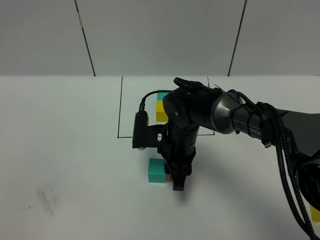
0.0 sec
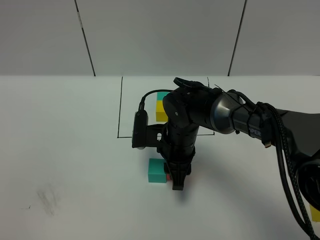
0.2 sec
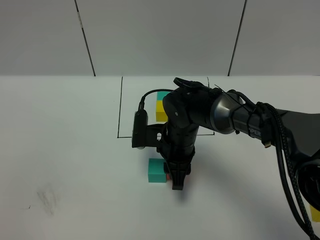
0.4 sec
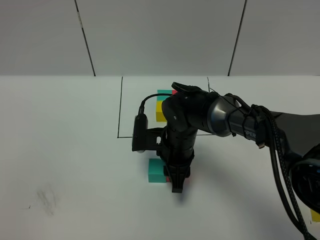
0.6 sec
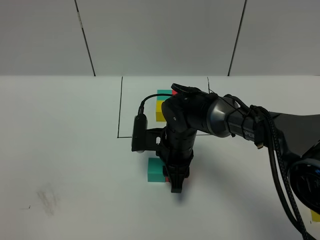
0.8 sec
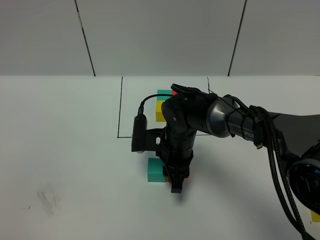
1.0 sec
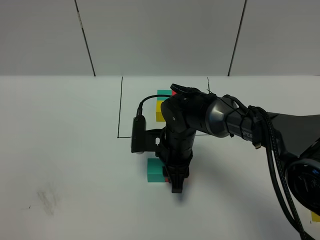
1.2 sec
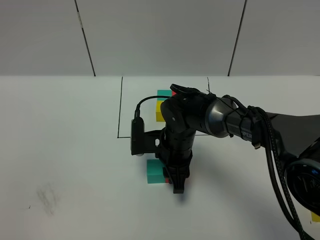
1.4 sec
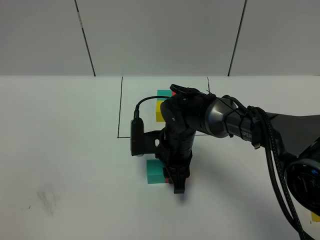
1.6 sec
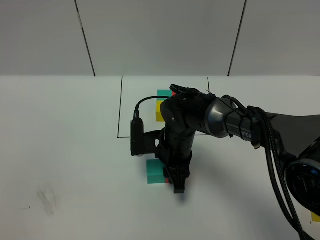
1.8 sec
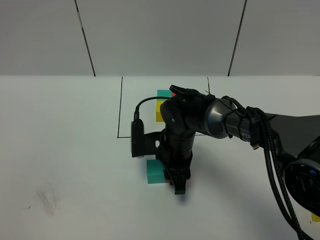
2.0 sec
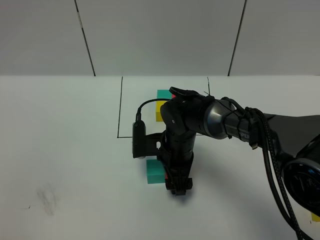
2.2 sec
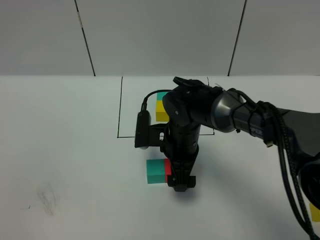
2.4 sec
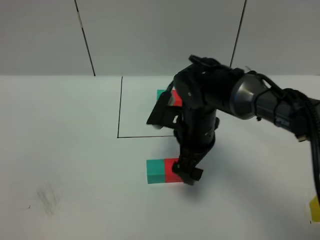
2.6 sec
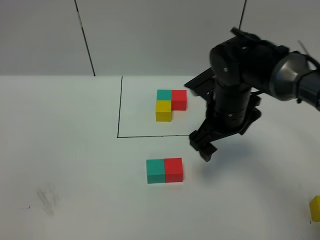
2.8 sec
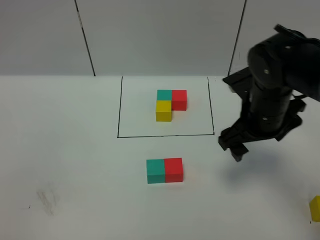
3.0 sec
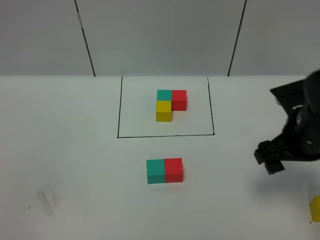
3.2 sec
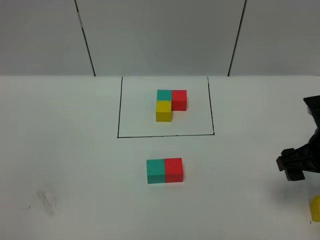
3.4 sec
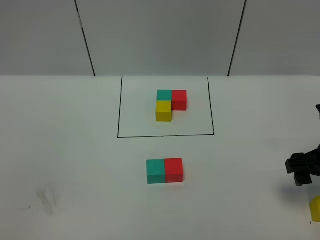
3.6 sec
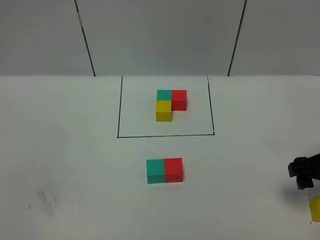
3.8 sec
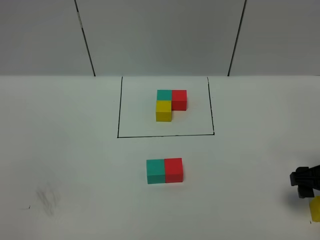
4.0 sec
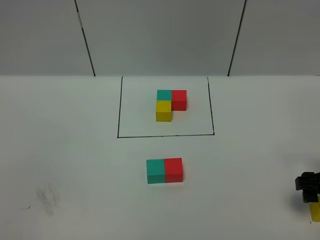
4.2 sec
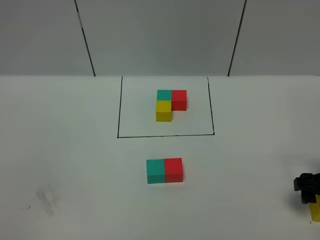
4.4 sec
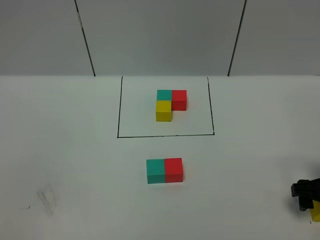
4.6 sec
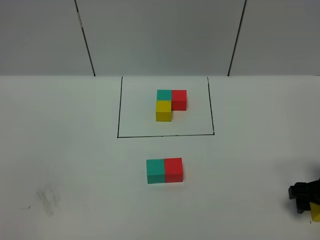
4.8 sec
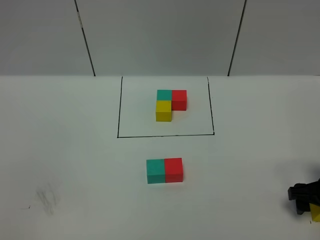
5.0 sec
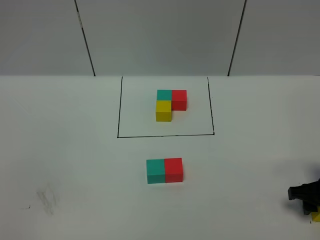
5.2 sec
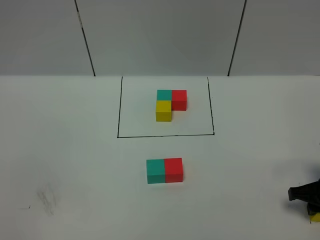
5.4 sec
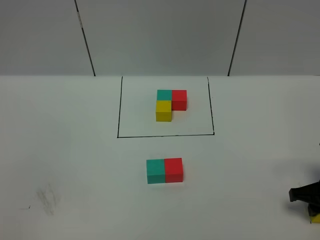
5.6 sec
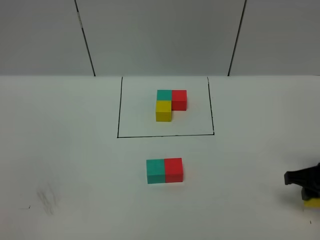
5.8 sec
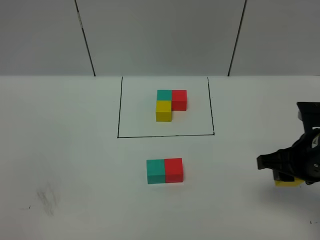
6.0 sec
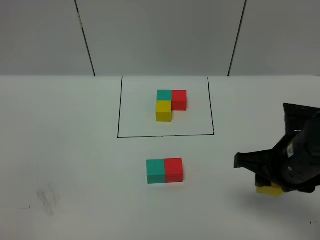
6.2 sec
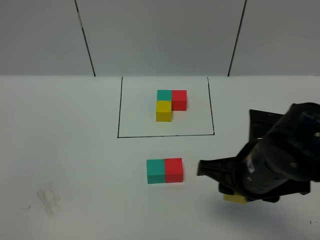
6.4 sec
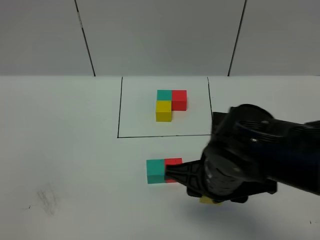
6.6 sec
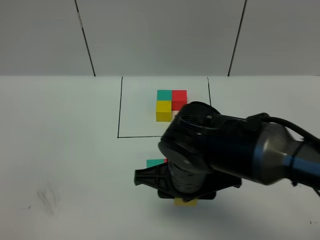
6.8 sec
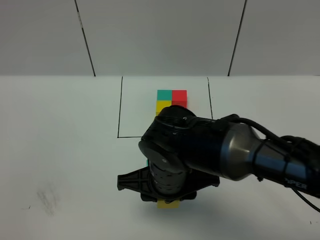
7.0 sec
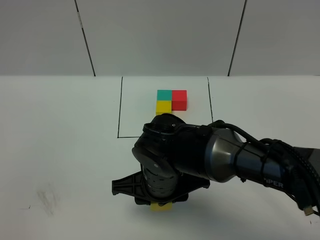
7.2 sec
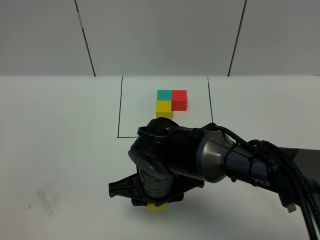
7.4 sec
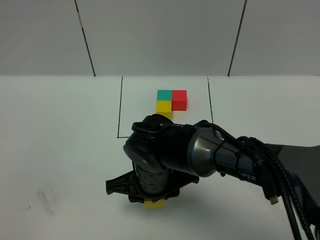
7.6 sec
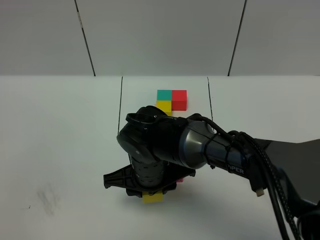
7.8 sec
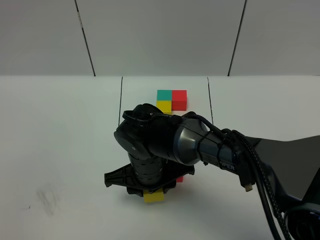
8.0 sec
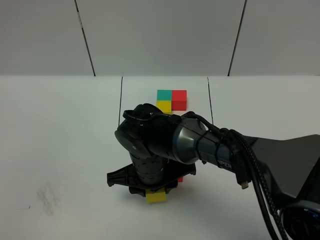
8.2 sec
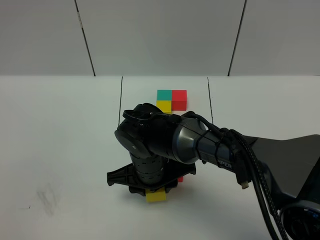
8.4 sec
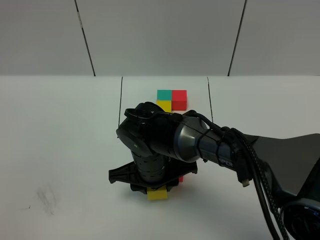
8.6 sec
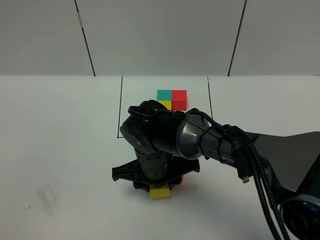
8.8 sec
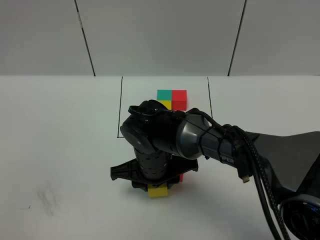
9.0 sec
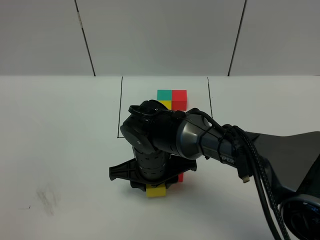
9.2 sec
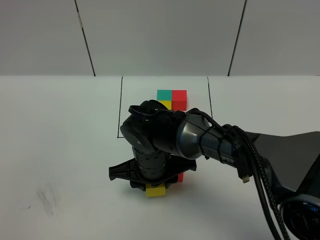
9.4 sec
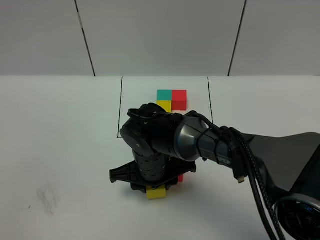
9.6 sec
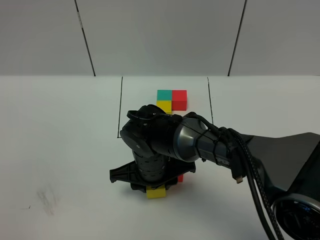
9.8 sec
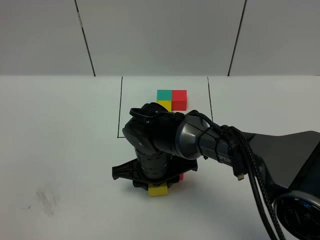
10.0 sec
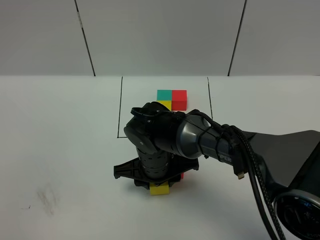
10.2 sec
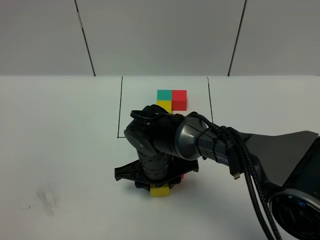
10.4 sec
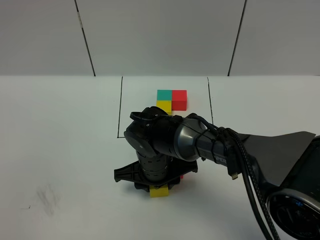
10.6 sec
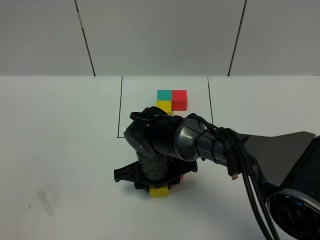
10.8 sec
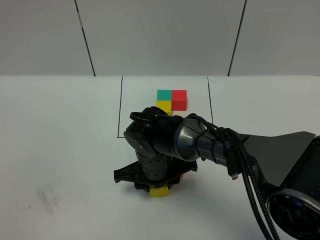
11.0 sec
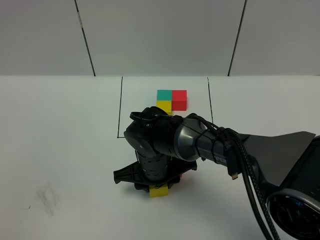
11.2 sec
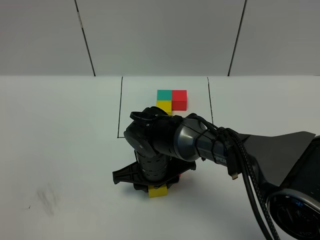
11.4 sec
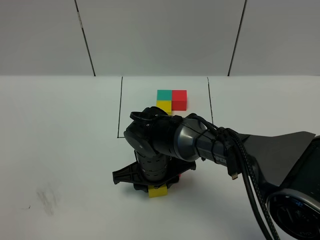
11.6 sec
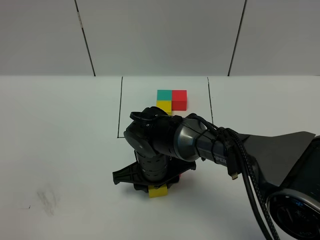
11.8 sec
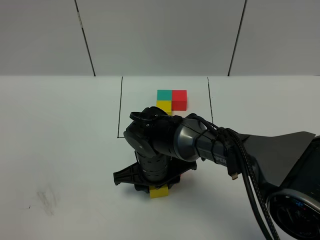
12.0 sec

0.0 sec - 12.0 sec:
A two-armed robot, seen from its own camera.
Task of the whole recording: According to the building block template in front, assemble the scattered blocks together.
Step, 0.0 sec - 2.8 sec: Put the red cube on the right of the green cube.
0.0 sec - 1.6 sec: There are only small adjustments of the grippers.
1.6 sec - 3.0 sec: The right gripper travels to the right and upward by roughly 20 cm, and opens up.
3.0 sec - 4.4 sec: The right gripper travels to the right, downward and backward by approximately 20 cm.
4.4 sec - 6.0 sec: The right gripper goes about 10 cm to the left and upward, and closes its fingers.
6.0 sec - 7.6 sec: The right gripper goes some 25 cm to the left.
7.6 sec - 12.0 sec: The grippers move only a little.

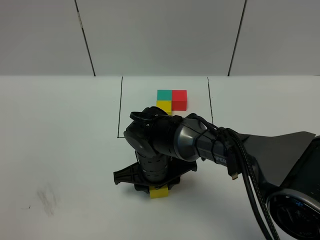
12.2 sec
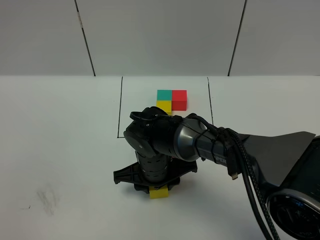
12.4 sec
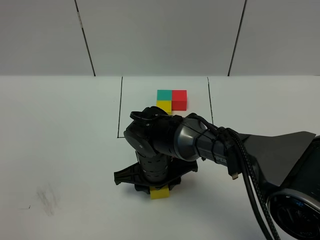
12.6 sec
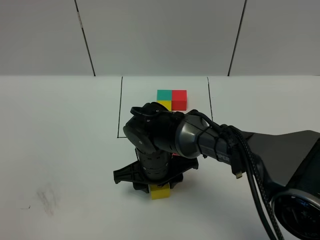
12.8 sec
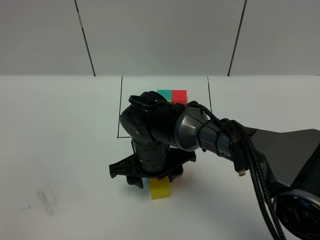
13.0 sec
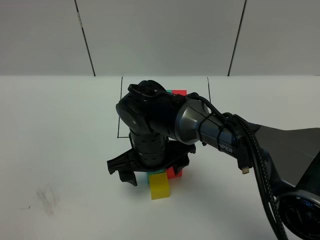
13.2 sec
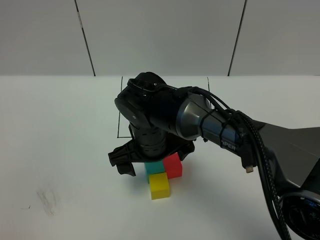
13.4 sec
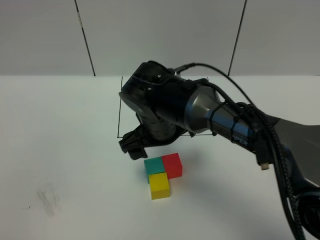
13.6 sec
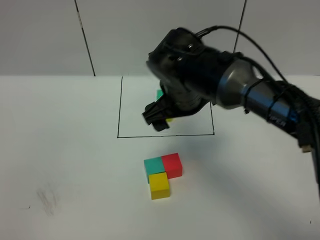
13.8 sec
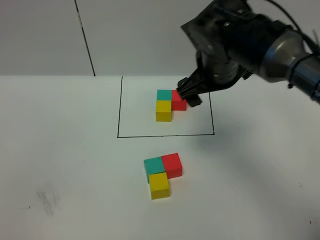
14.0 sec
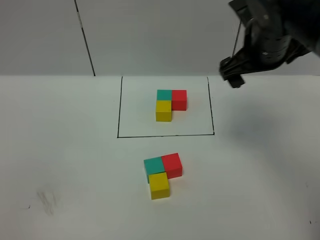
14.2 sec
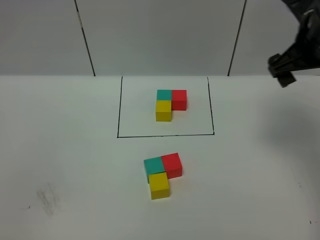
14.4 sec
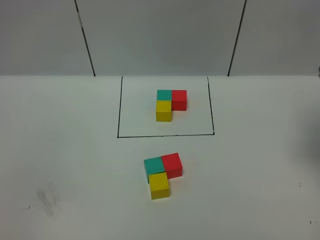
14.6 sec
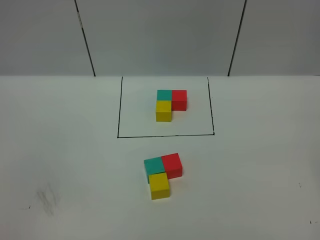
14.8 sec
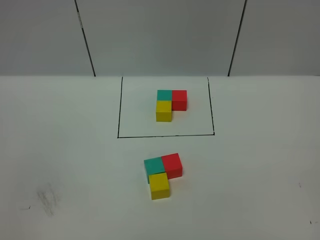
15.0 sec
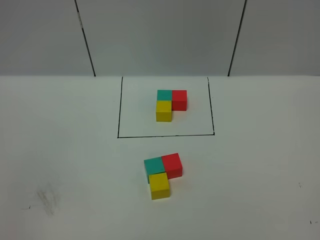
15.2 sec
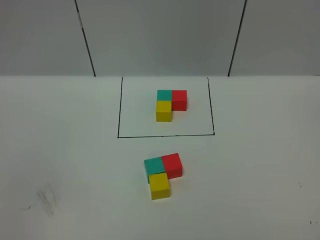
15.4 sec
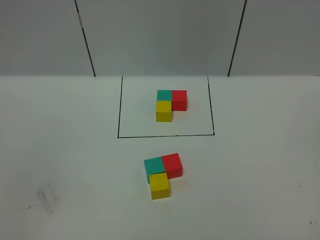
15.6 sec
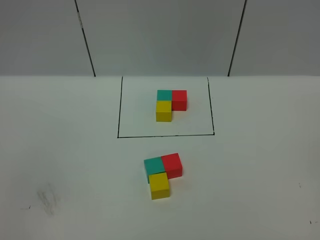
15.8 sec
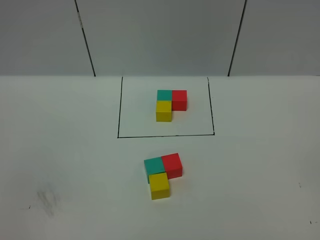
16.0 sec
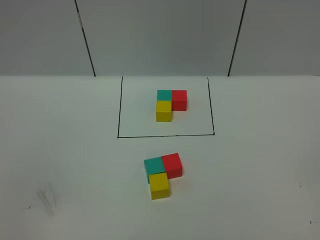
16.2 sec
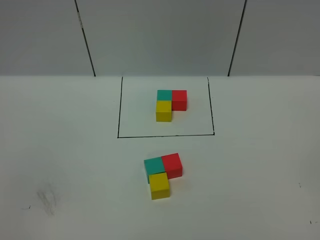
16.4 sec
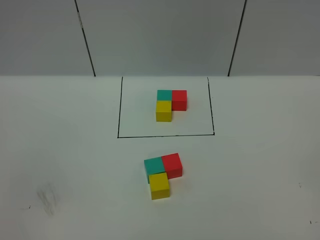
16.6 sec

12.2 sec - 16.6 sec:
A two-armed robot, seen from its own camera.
Task of the whole recording: According to the building block template in front, assemble the scattered blocks together.
12.2 sec - 13.6 sec: The right gripper travels upward by some 10 cm, and opens its fingers.
13.6 sec - 15.2 sec: The right gripper goes approximately 50 cm to the right, backward and upward.
